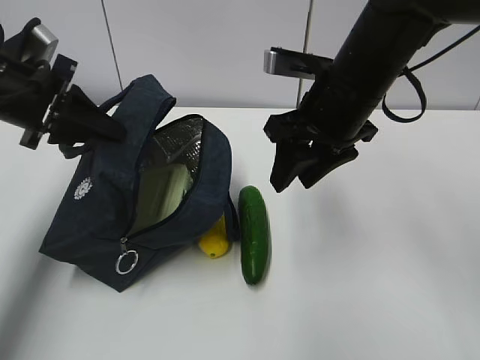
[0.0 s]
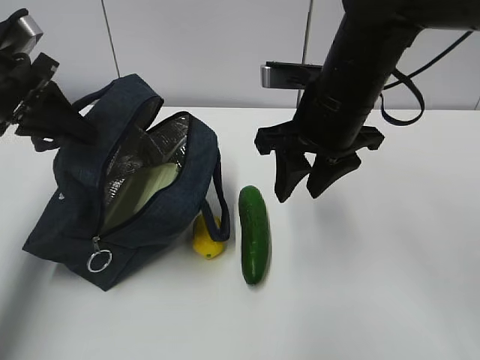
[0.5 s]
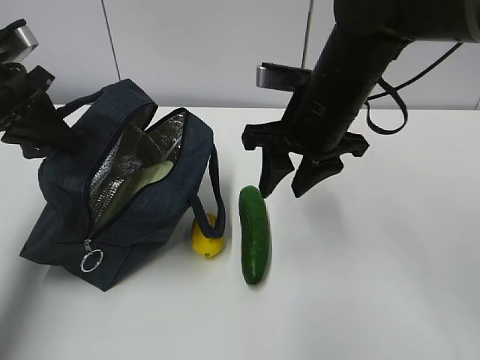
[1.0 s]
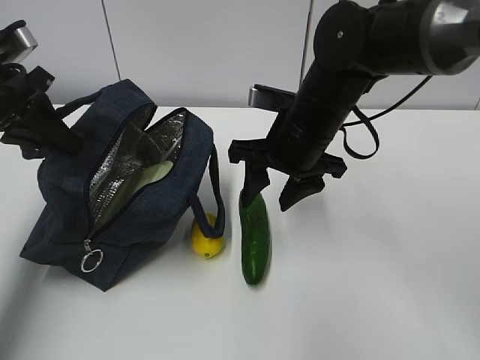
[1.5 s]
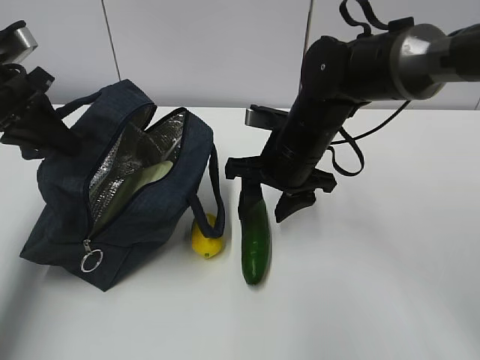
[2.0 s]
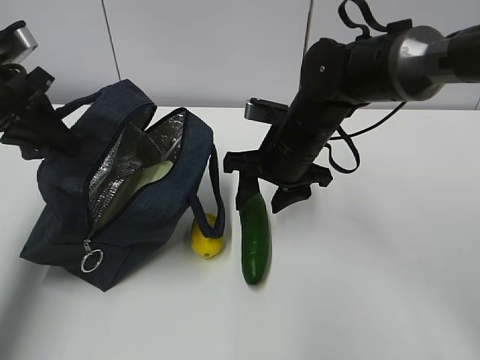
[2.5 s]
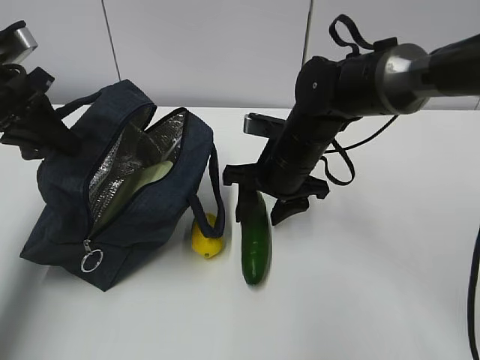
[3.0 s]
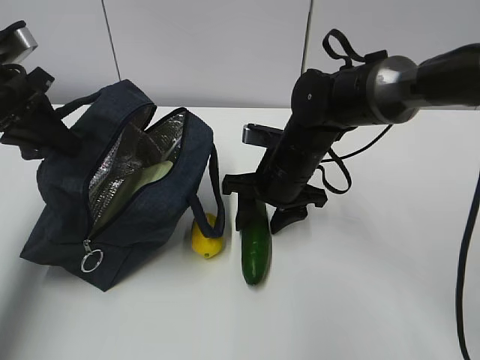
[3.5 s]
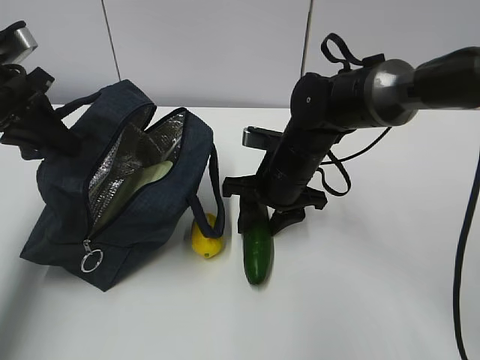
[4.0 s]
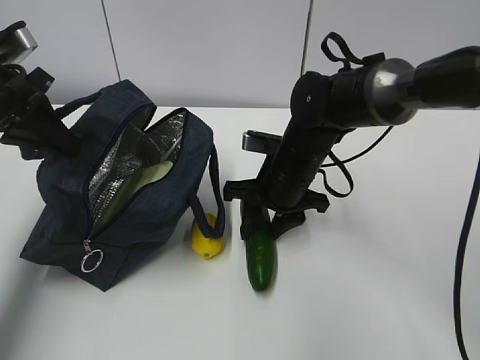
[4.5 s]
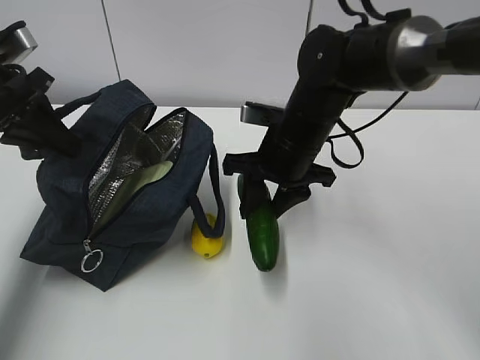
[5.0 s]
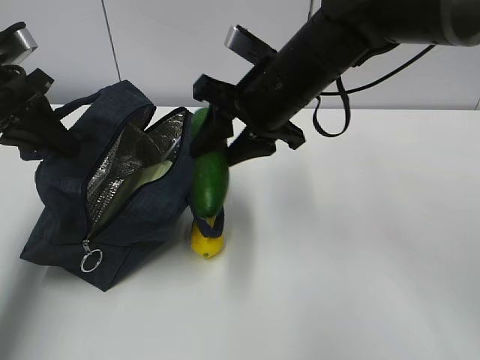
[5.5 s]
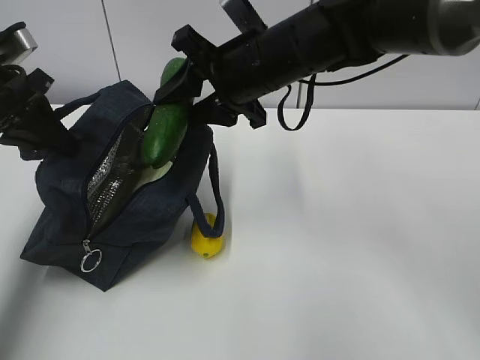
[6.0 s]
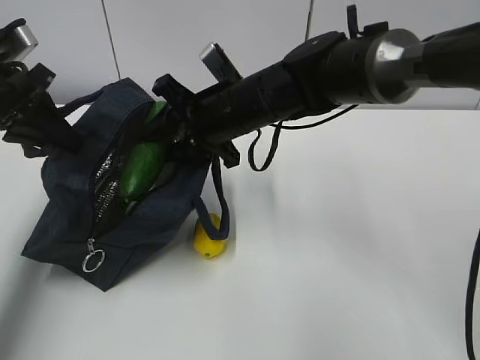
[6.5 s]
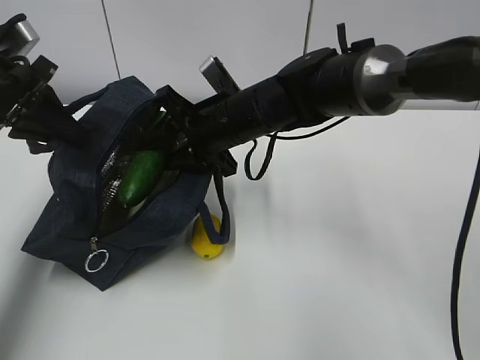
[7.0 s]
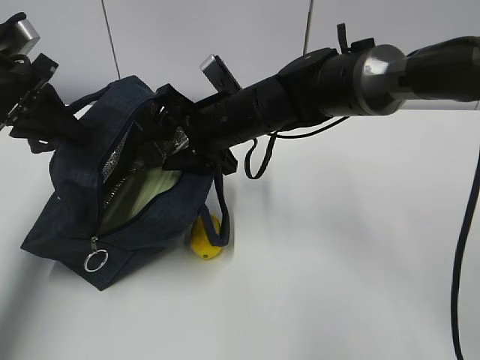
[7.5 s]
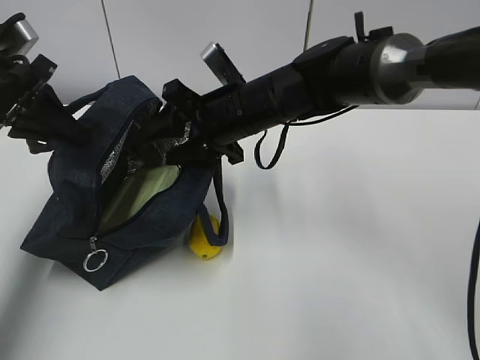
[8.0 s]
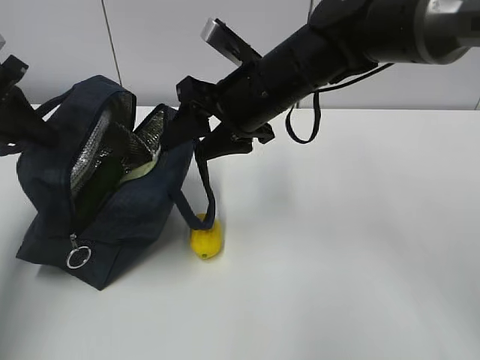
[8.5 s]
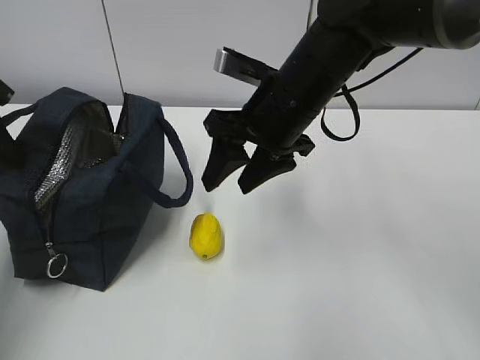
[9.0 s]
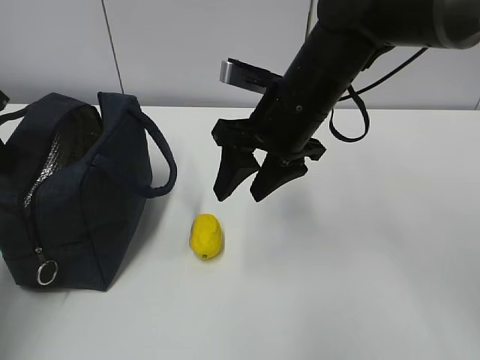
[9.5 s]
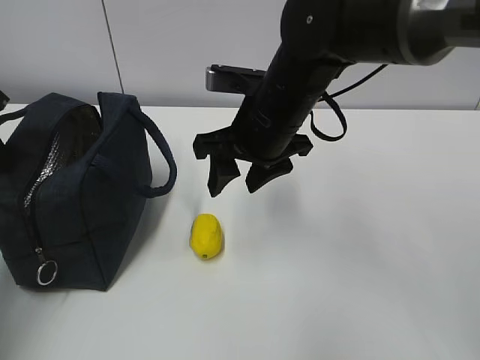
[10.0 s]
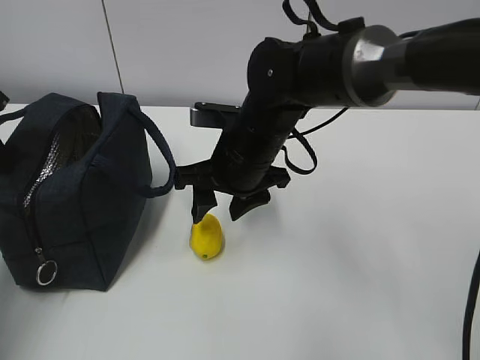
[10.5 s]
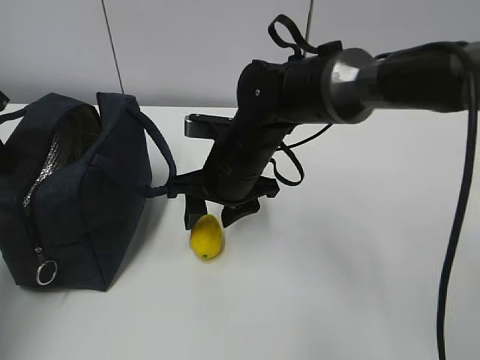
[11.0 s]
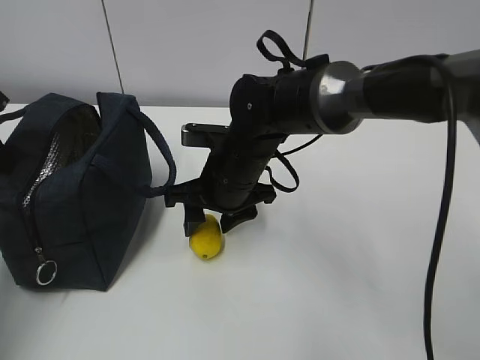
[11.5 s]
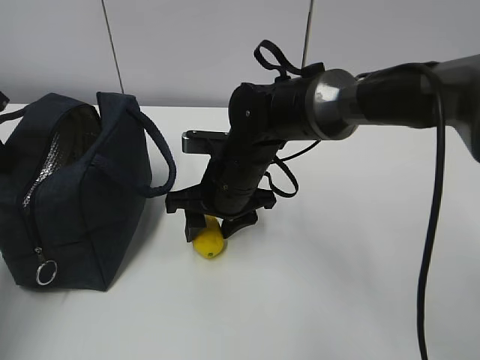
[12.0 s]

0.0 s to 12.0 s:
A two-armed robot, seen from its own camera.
Step, 1.5 to 6.0 s: Grab the lemon with your right hand.
Step, 6.5 to 9.5 s: Secure the lunch bag with your left hand.
0.0 to 2.0 s: The right gripper goes approximately 10 cm downward.
2.0 to 4.0 s: The grippers move only a little.
4.0 to 6.0 s: The right gripper is displaced upward by about 15 cm.
6.0 to 8.0 s: The right gripper is displaced downward by roughly 5 cm.
8.0 to 10.0 s: The left gripper goes roughly 5 cm to the left. The right gripper shifts by roughly 5 cm.
10.0 to 12.0 s: The right gripper heads downward, covering roughly 10 cm.

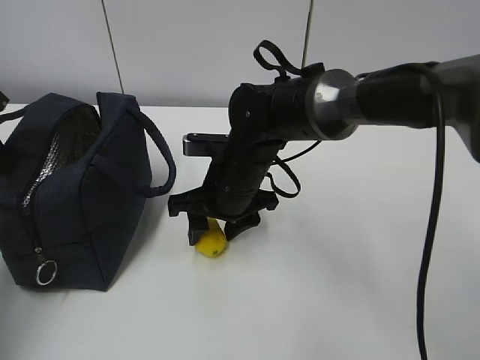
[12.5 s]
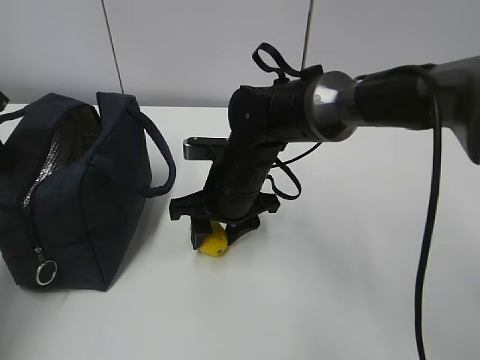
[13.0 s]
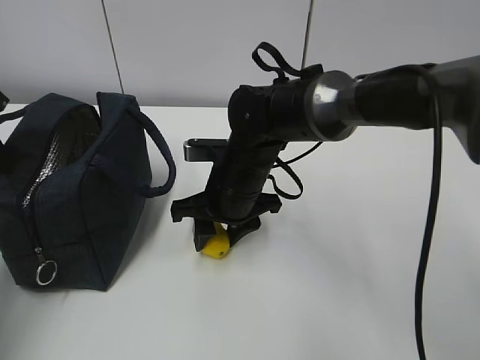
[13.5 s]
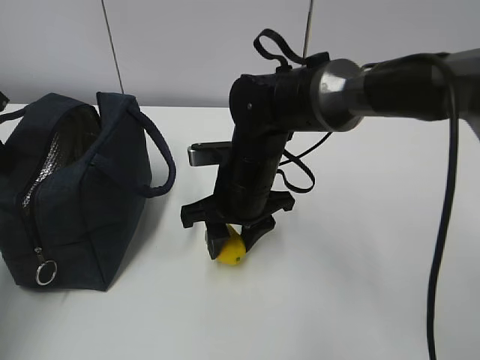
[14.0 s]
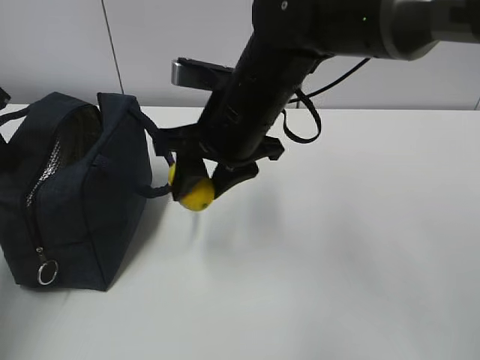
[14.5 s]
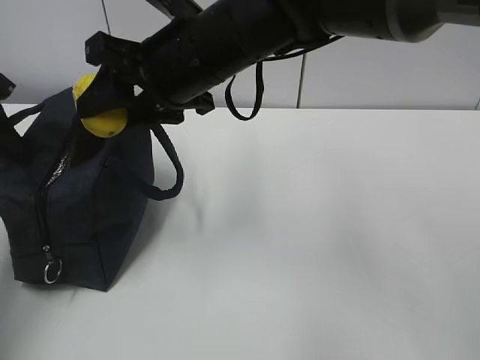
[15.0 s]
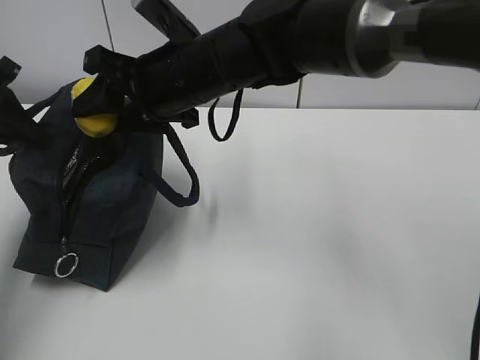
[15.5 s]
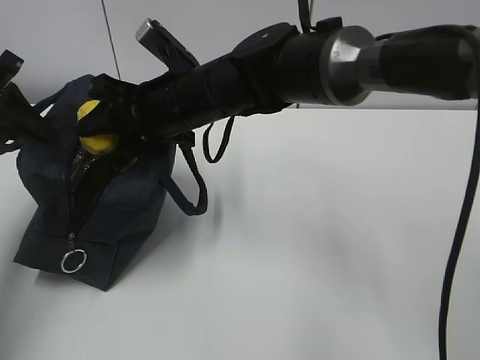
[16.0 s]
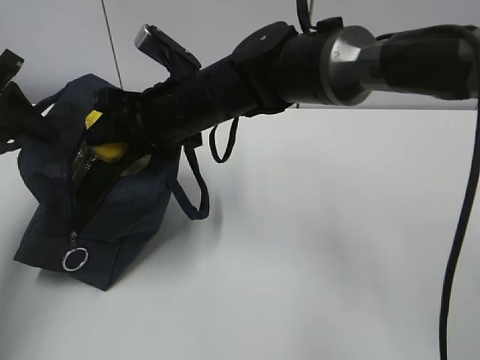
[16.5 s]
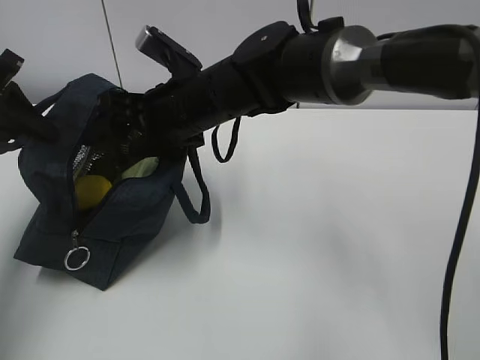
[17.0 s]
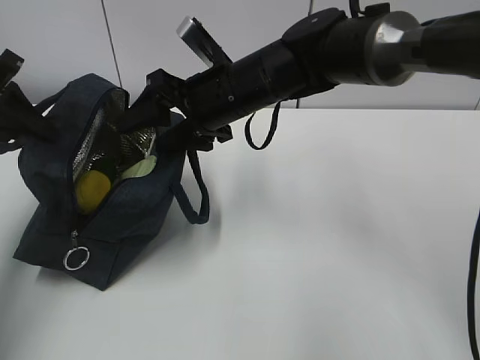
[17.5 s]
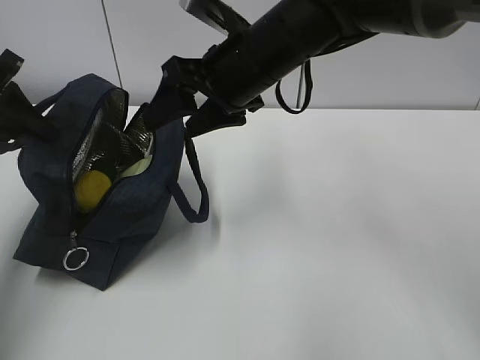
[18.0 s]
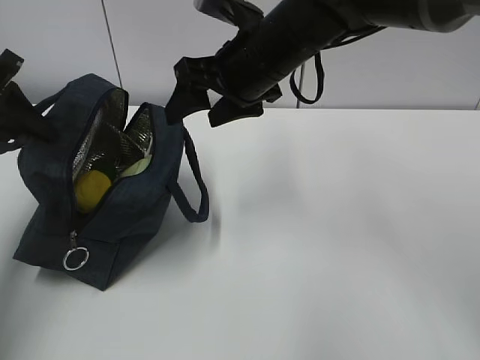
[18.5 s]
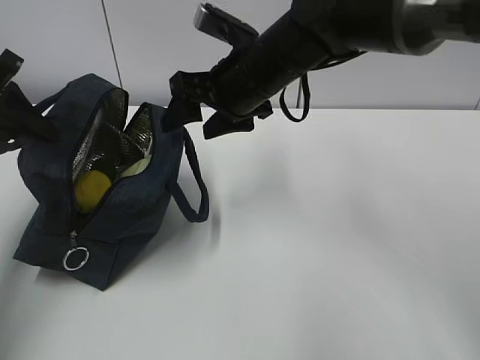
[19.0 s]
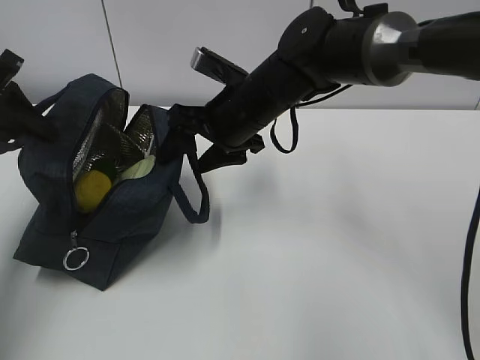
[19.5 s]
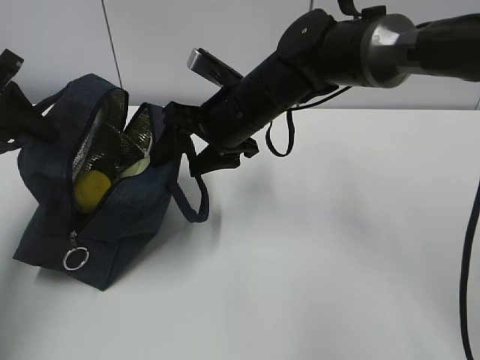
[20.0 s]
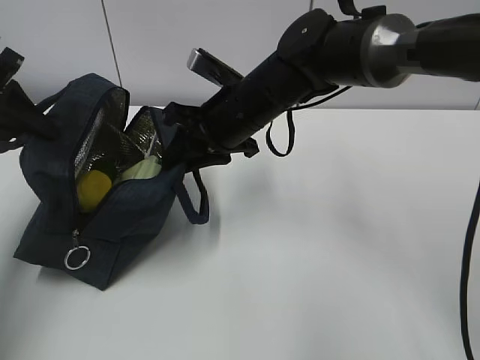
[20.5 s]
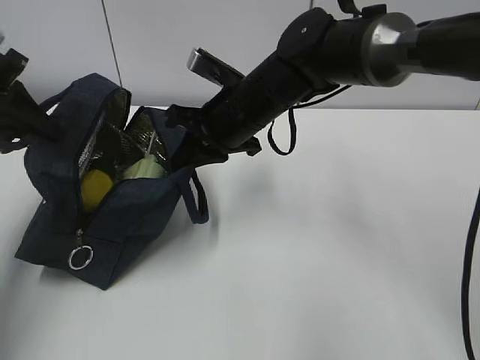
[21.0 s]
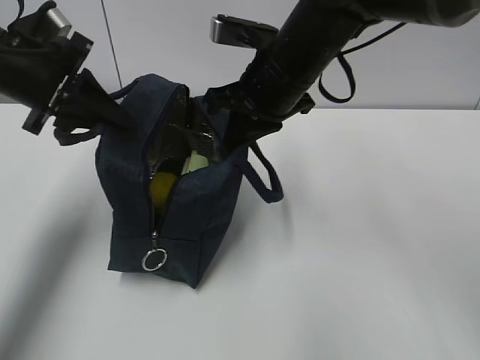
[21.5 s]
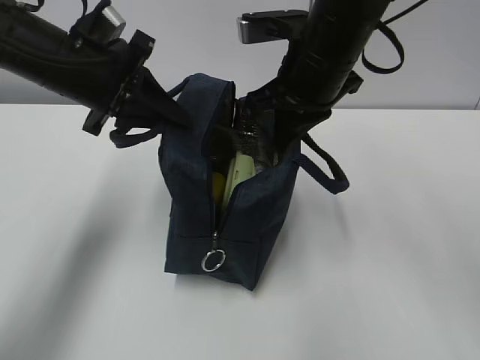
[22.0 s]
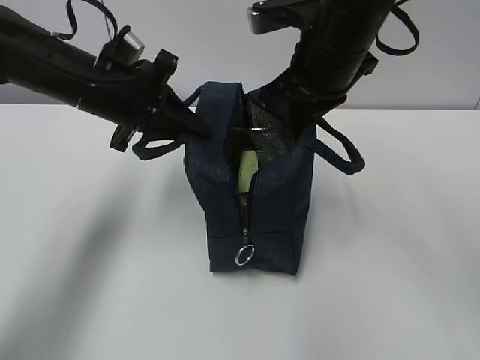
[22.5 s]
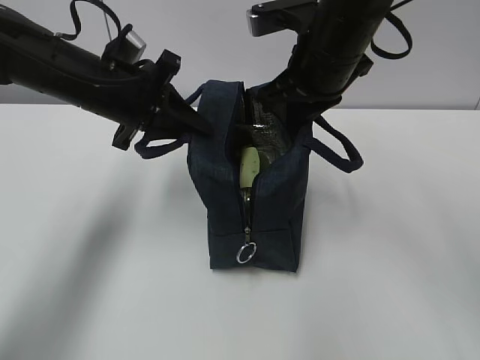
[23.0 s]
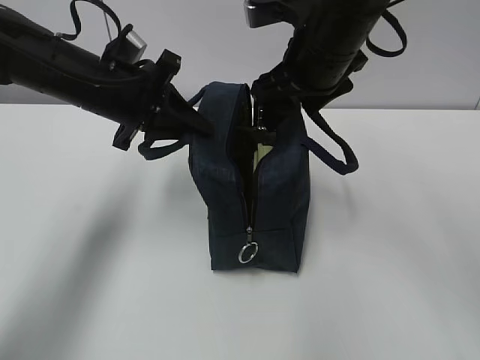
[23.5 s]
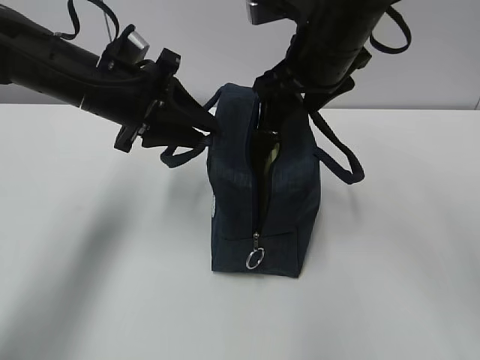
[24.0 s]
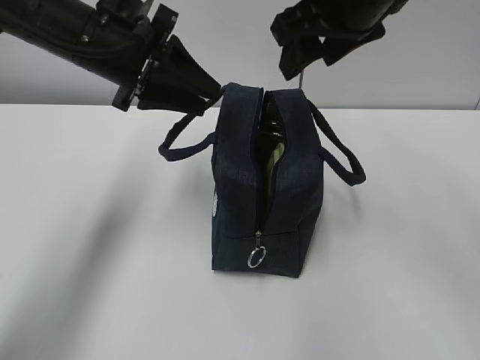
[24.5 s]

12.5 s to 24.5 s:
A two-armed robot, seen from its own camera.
Step, 12.5 to 15.0 s: Move the lunch bag to the right.
12.5 to 14.5 s: The right gripper is displaced upward by approximately 10 cm.
14.5 to 16.5 s: The right gripper goes approximately 5 cm to the left.
16.5 to 18.5 s: The right gripper goes some 10 cm to the right.
18.5 to 20.5 s: The right gripper goes some 5 cm downward, and closes.
20.5 to 22.5 s: The left gripper shifts roughly 15 cm to the right. Meanwhile the right gripper heads upward and to the right, covering roughly 10 cm, and closes.
22.5 to 24.5 s: The right gripper is displaced upward by about 5 cm, and opens its fingers. Meanwhile the left gripper opens its fingers.

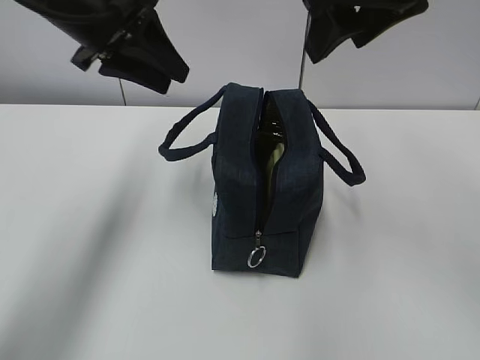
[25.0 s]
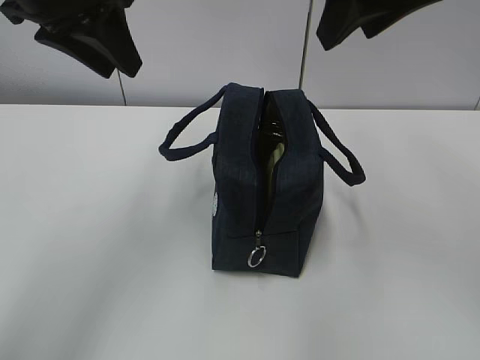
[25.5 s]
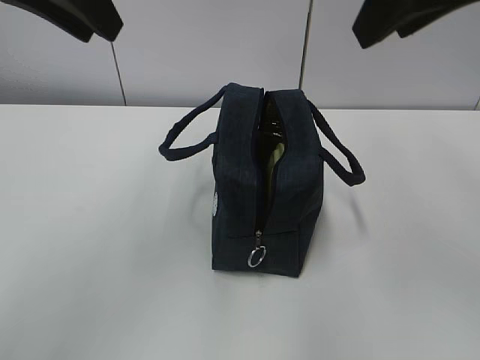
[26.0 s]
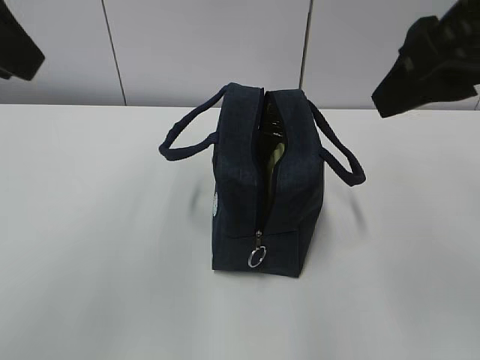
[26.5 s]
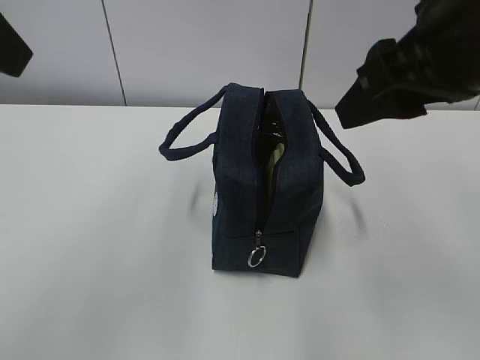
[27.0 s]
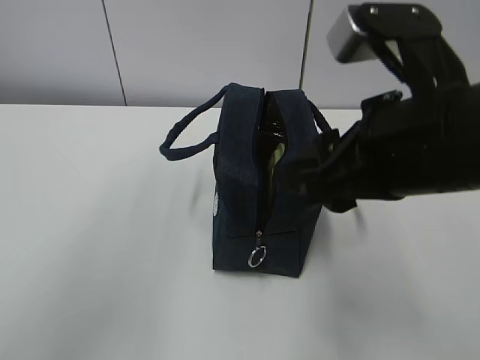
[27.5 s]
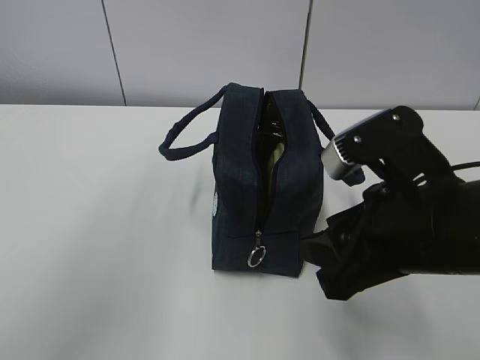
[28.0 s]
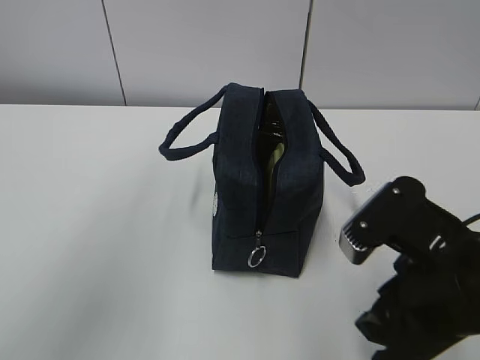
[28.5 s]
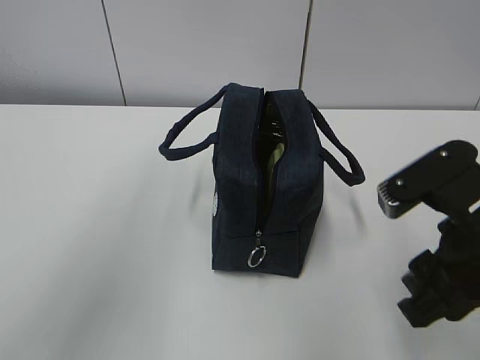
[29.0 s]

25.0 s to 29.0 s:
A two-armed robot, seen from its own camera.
25.0 to 27.0 s: The right gripper goes roughly 10 cm backward, while the left gripper shifts approximately 20 cm backward and upward.
27.0 to 29.0 s: The right gripper is displaced downward and backward by about 15 cm.
